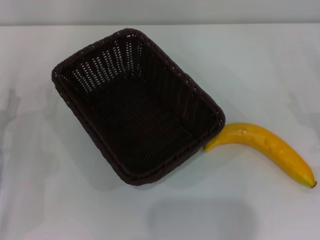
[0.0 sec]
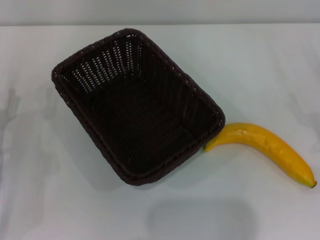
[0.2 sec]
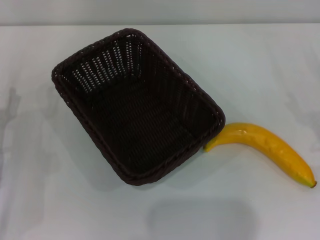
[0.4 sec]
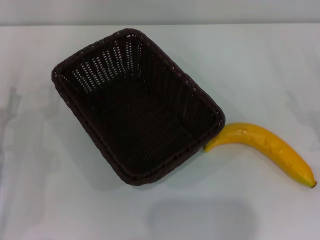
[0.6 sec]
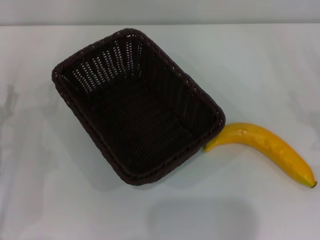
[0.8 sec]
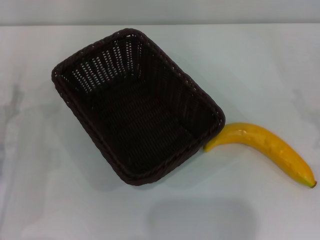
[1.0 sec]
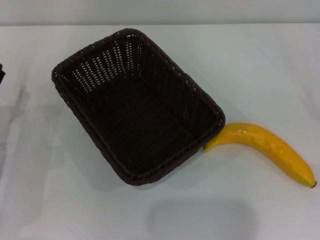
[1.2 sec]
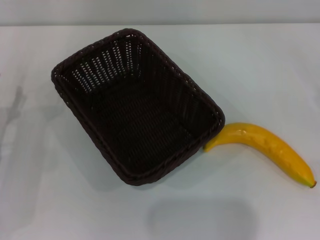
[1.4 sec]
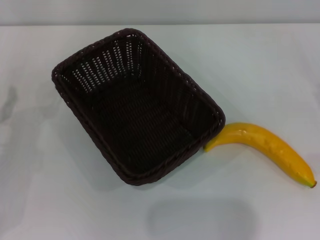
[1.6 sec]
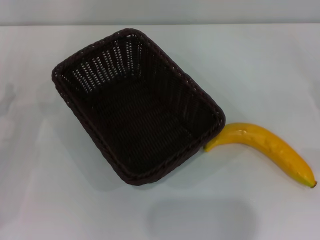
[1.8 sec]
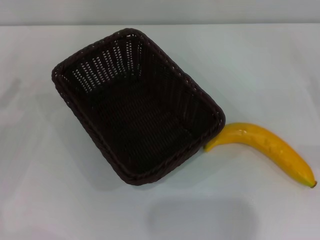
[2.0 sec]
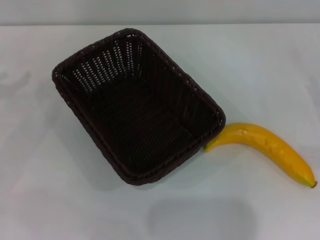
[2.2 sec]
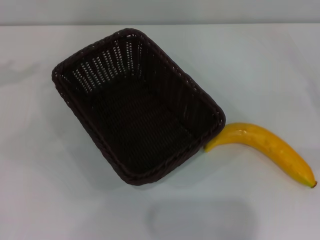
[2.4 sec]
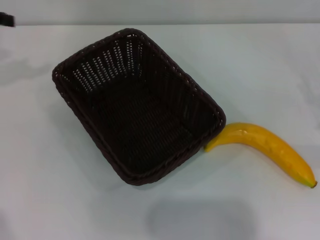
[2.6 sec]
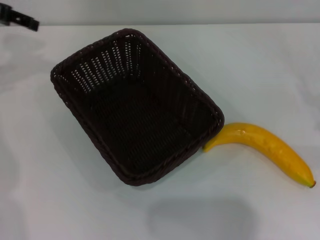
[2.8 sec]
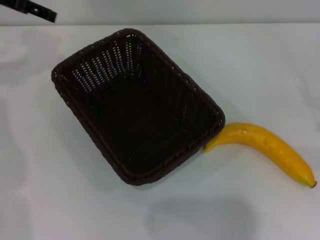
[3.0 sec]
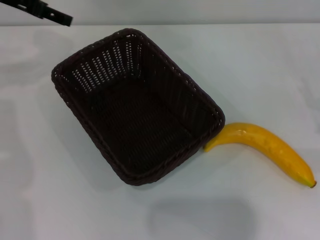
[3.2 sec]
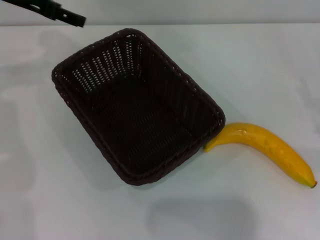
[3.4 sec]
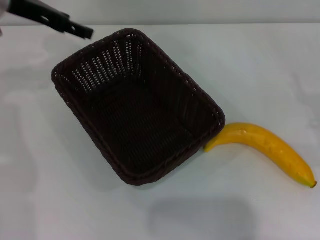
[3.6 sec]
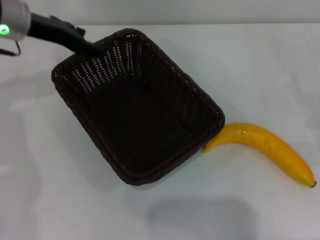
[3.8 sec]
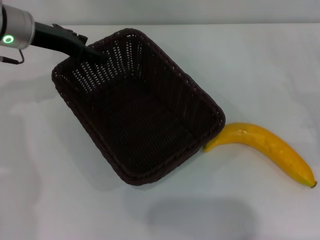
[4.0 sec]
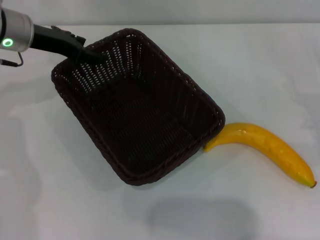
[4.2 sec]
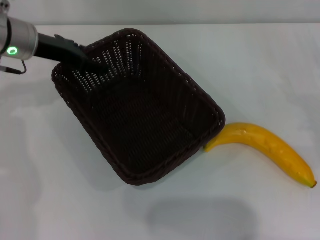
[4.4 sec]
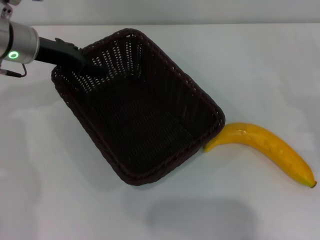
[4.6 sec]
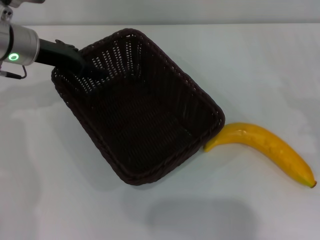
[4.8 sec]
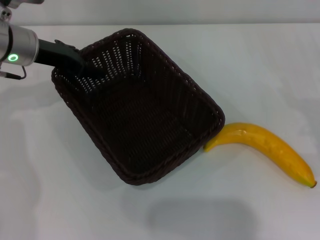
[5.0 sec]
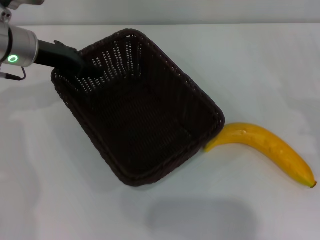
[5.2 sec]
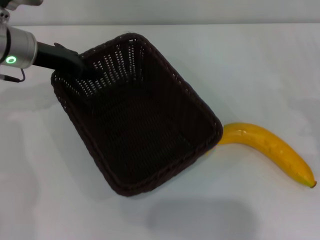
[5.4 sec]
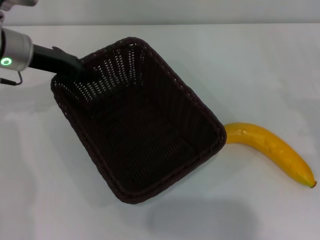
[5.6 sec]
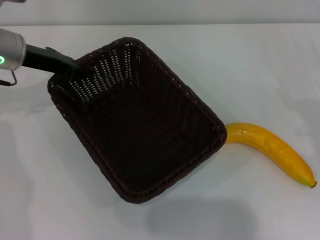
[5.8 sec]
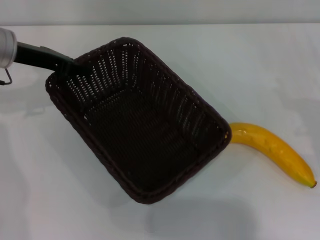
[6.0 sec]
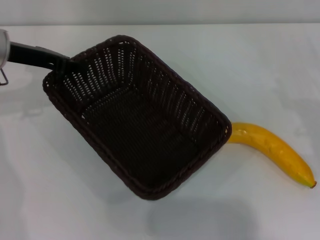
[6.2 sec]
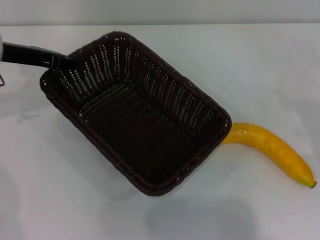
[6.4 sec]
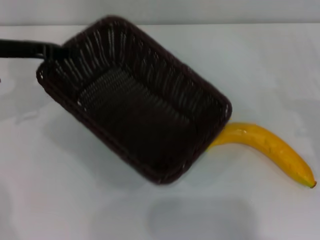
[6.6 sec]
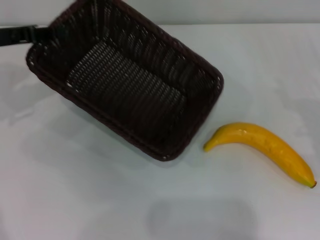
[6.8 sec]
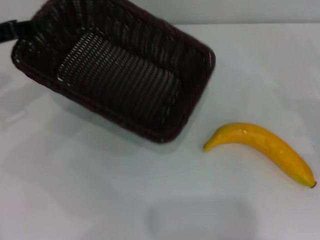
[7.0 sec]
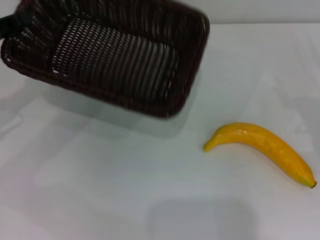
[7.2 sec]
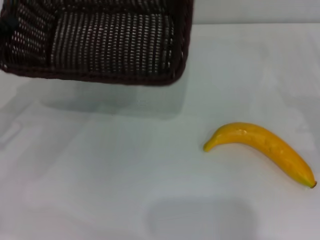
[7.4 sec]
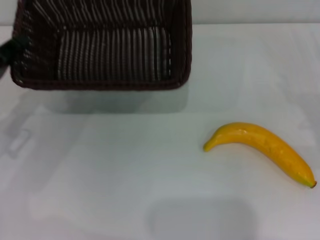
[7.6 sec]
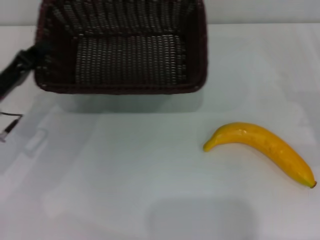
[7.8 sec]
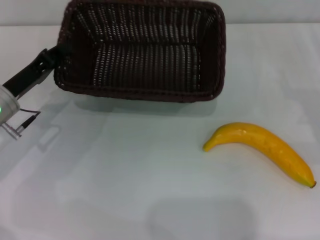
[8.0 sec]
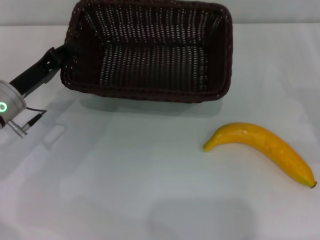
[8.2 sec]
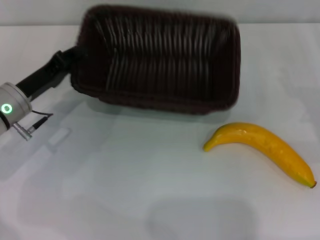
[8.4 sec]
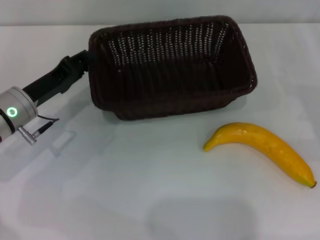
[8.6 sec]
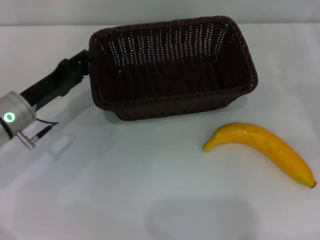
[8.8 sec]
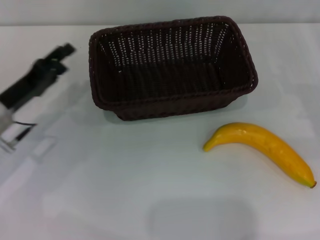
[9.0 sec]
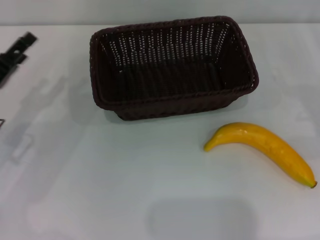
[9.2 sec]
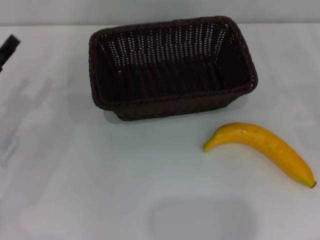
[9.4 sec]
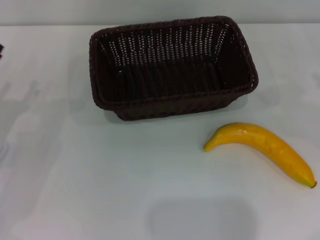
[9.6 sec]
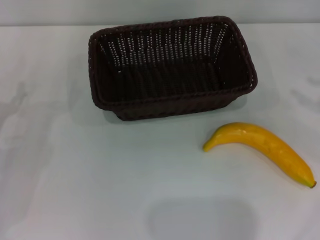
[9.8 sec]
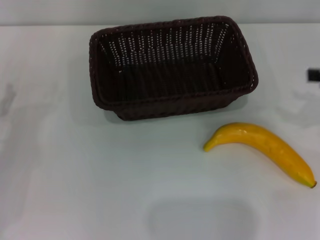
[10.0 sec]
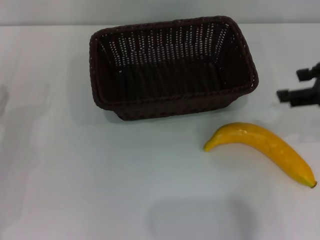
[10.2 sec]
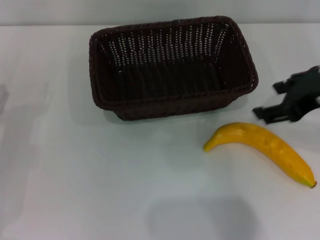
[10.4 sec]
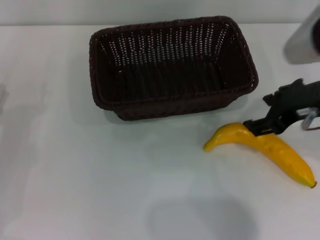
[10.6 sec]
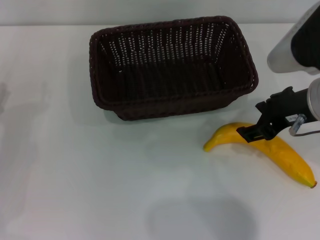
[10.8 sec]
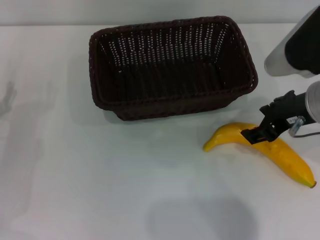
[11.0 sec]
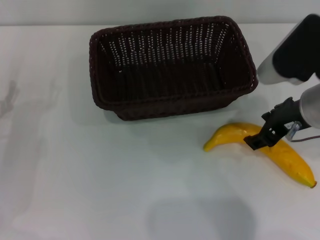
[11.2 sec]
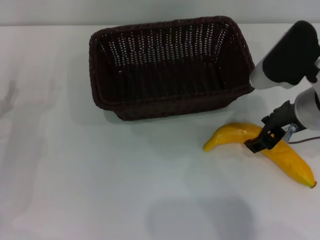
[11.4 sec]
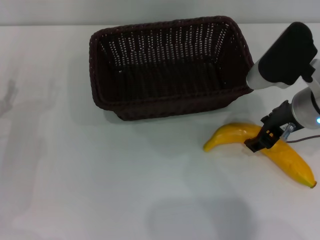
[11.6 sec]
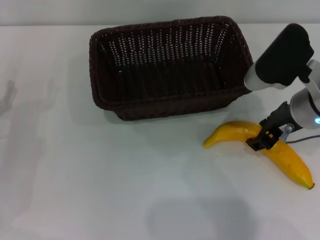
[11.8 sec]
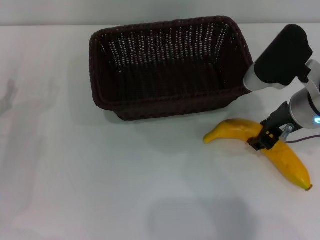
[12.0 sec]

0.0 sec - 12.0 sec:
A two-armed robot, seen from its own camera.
Step, 0.0 sec - 6.2 sec: Pick up the dark basket with the left gripper.
Step, 6.6 sec - 8.6 sec: Place the dark basket in the center of view with the left gripper.
1.6 sec - 3.0 sec: The left gripper heads upward and forward, covering roughly 30 cm.
3.0 sec - 4.4 sec: The left gripper moves downward and to the right, roughly 10 cm.
4.4 sec - 6.0 sec: The left gripper closes its fingers.
6.0 sec - 7.6 sec: The left gripper moves backward, downward and to the left, approximately 15 cm.
7.6 sec - 9.0 sec: The left gripper opens.
9.0 sec - 10.4 sec: The right gripper moves to the left and upward, roughly 20 cm. The left gripper moves to the left, roughly 5 cm, and opens its fingers.
10.4 sec - 12.0 sec: The right gripper shifts roughly 10 cm downward, and closes.

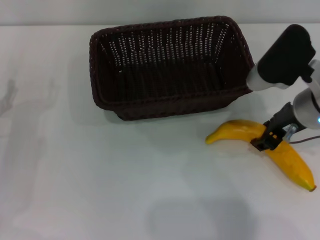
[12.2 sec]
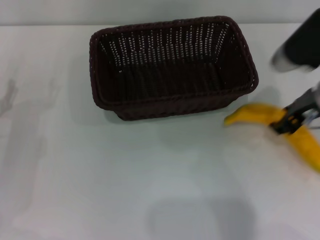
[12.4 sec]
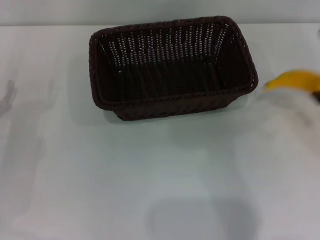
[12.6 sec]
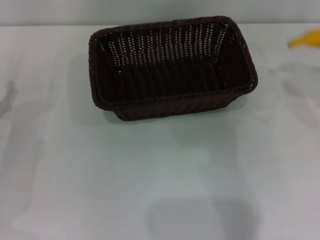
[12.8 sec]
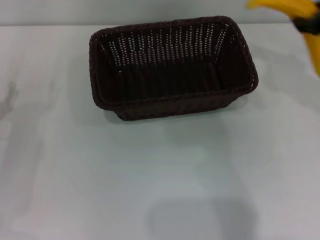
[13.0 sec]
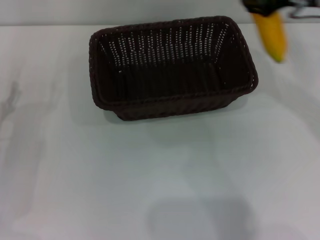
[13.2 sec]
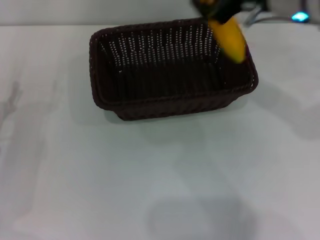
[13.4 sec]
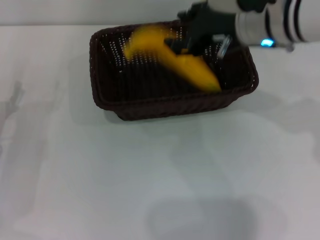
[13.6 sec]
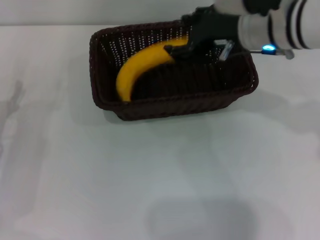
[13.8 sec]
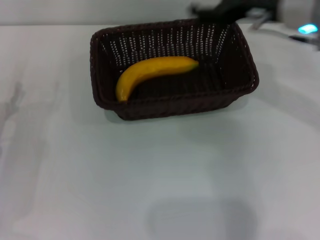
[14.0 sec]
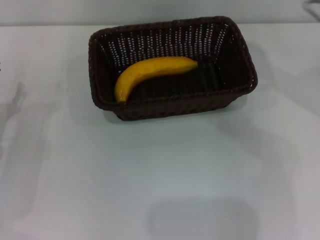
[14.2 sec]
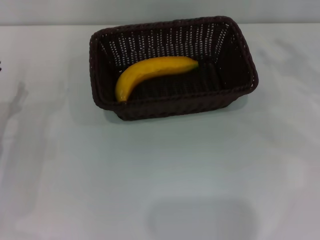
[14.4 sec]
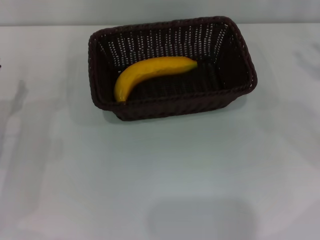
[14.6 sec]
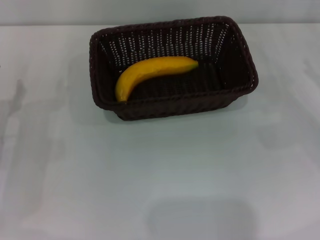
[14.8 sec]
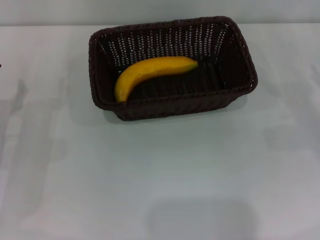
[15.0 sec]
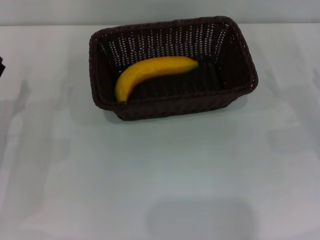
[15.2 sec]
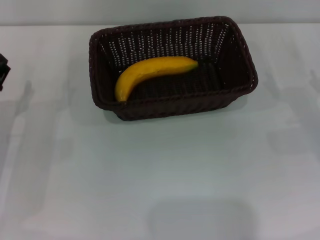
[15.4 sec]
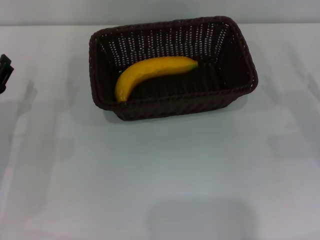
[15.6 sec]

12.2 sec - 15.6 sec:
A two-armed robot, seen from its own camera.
Step, 12.4 sec - 13.8 sec: Place the banana into the dark basket with the right gripper.
12.2 sec - 13.8 sec: The right gripper heads forward and upward, covering some 10 cm, and travels to the right and back again, some 10 cm each way.
13.8 sec - 15.6 sec: The right gripper shifts some 25 cm to the right and downward, and opens its fingers.
